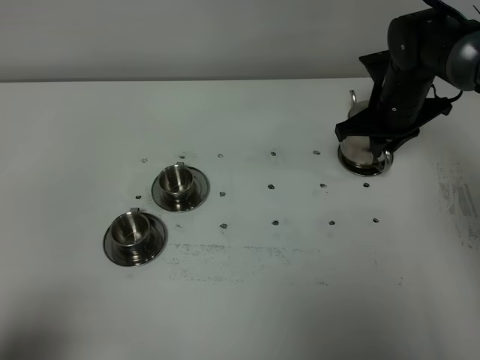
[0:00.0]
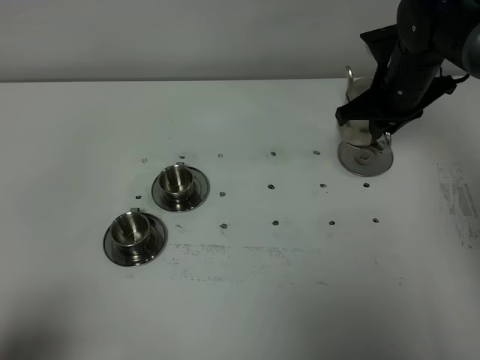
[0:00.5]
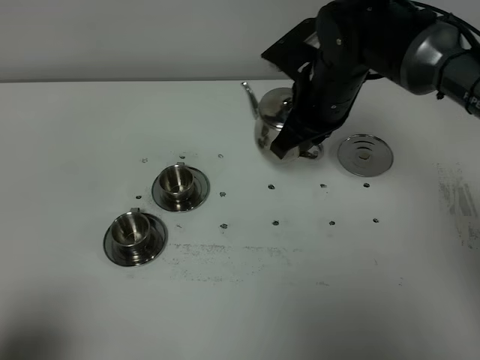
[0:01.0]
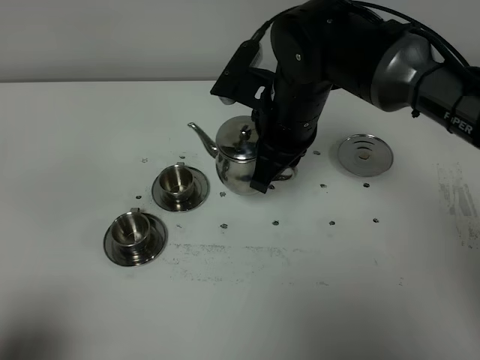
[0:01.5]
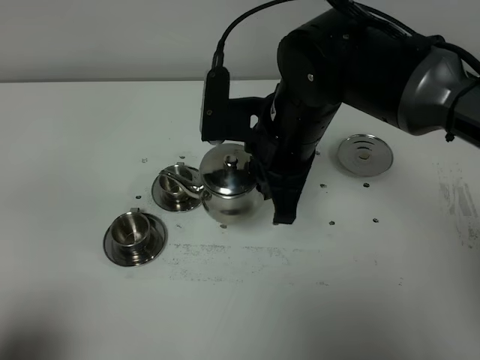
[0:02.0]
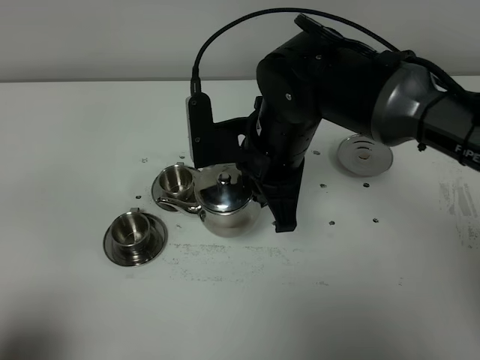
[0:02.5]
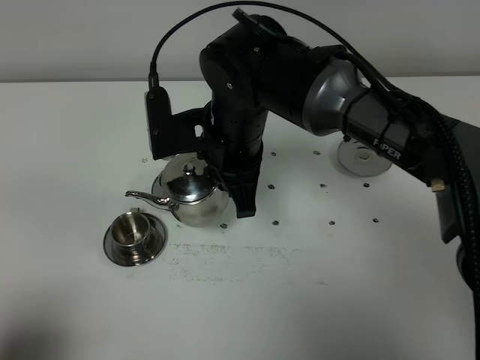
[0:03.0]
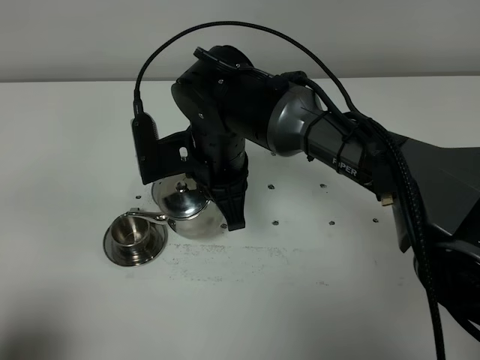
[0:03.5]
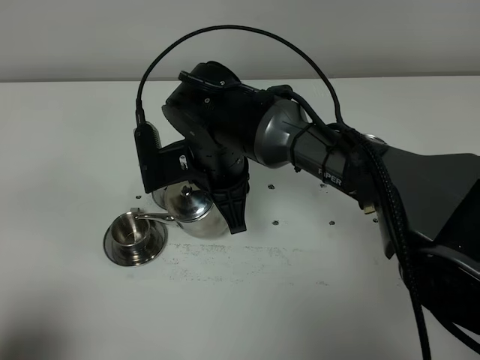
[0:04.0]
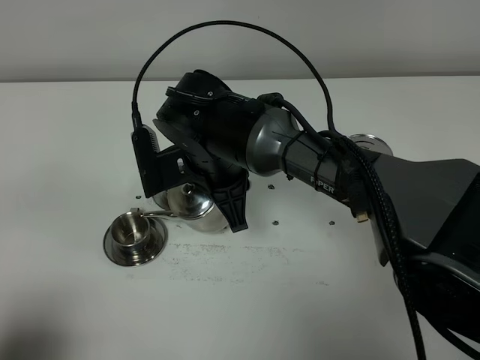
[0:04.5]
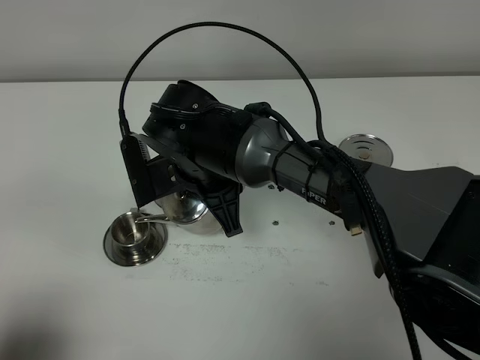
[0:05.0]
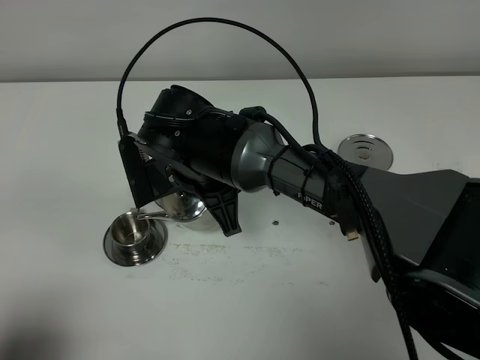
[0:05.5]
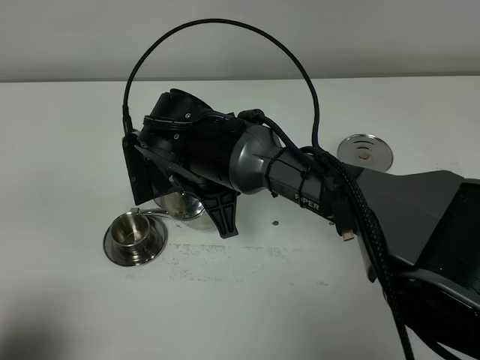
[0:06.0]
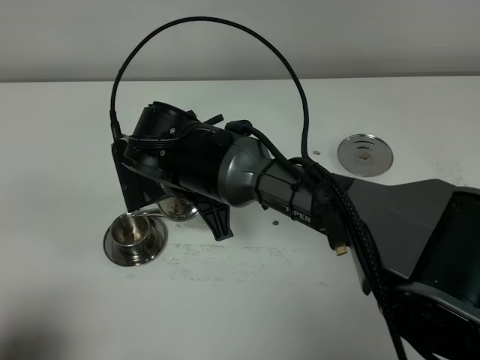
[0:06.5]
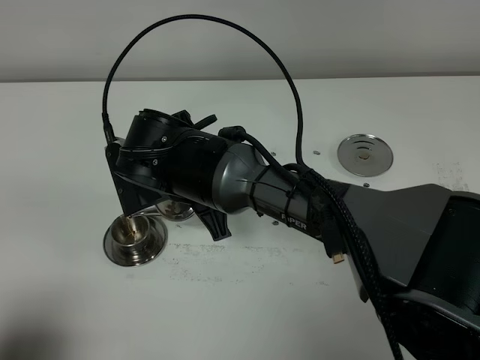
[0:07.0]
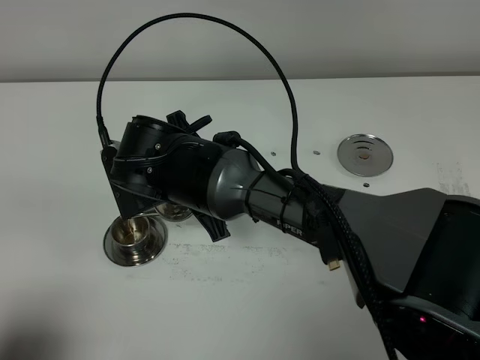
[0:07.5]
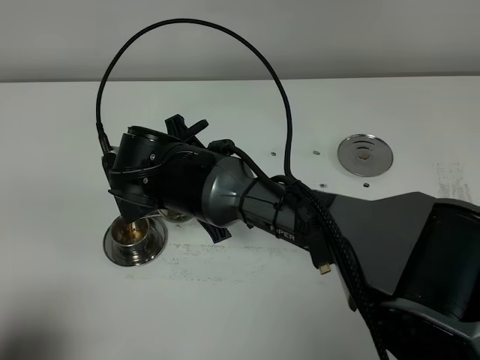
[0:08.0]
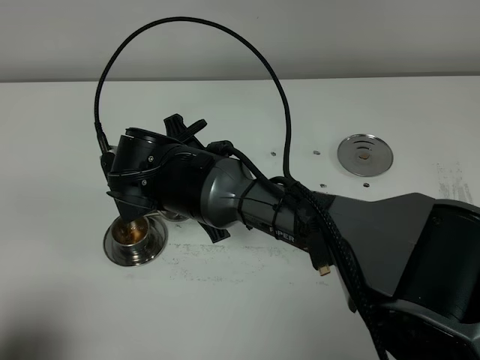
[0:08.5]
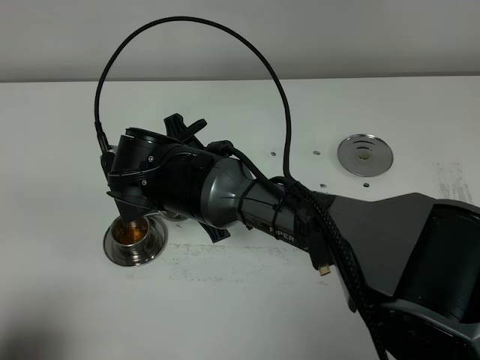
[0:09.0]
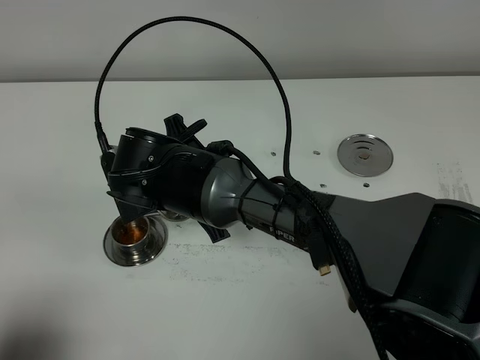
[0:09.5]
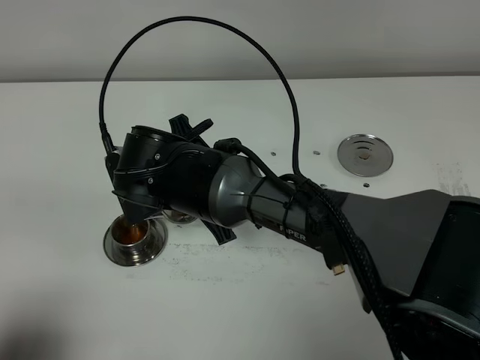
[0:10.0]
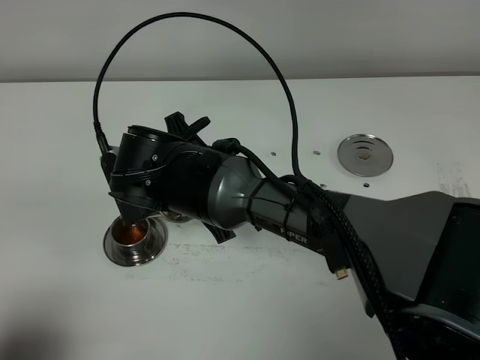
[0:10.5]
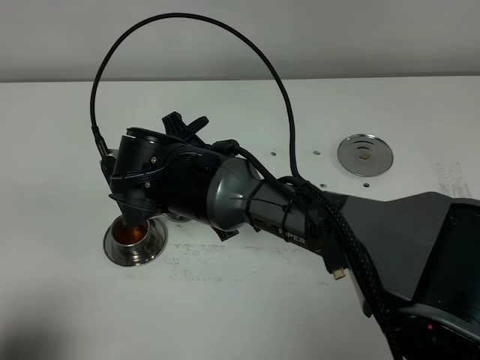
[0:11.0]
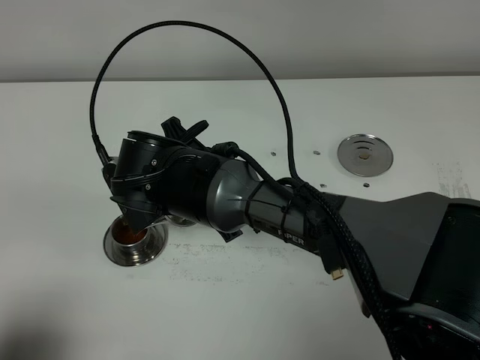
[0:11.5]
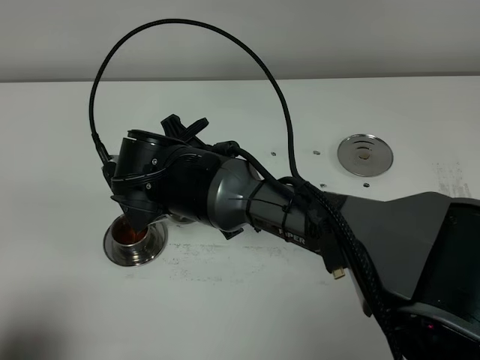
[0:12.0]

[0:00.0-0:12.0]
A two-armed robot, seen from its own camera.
Task of the whole recording: grasp the stainless steel teapot and pour the tea into the two stainless steel teacups one by one, put the stainless steel teapot back in its original place.
0:00.0 to 0:02.0: The right gripper moves to the left, backward and upward, about 25 cm.
0:02.0 to 0:04.0: The right gripper shifts roughly 10 cm to the left and downward.
0:08.0 to 0:10.0: The two grippers keep their place.
0:10.0 to 0:12.0: The grippers stay close to where they were, moving slightly.

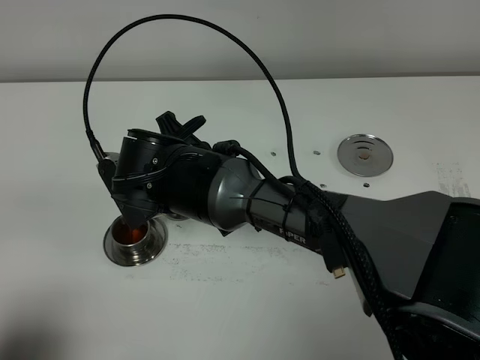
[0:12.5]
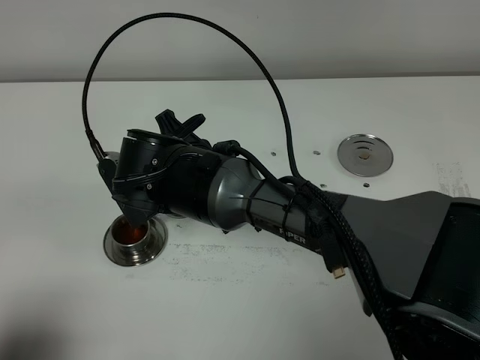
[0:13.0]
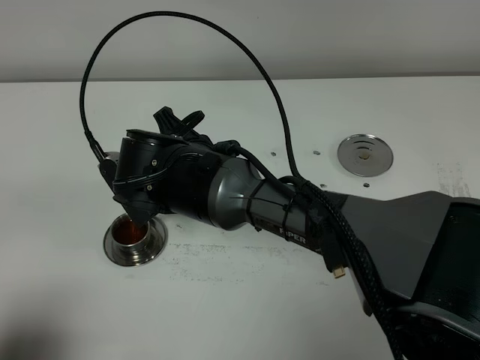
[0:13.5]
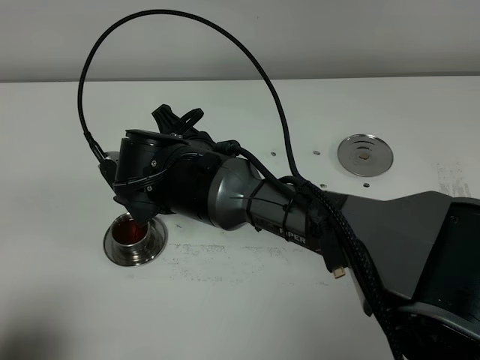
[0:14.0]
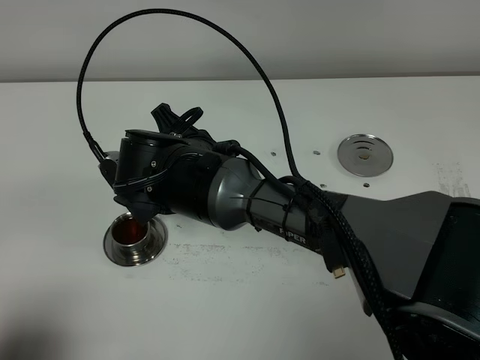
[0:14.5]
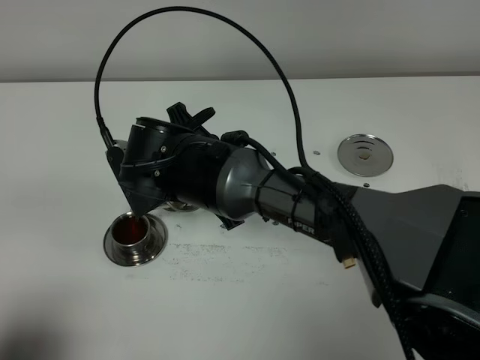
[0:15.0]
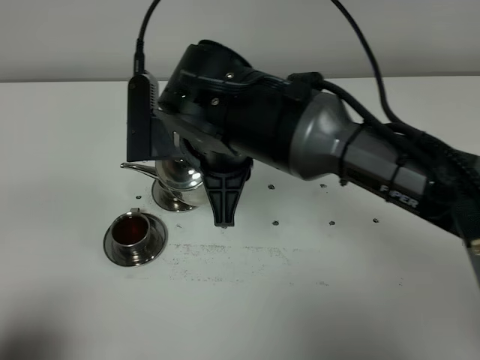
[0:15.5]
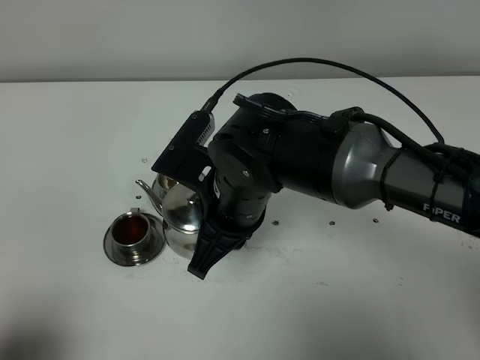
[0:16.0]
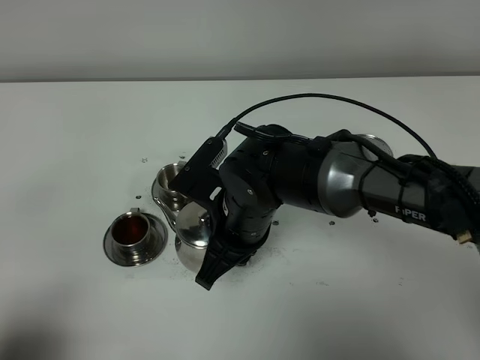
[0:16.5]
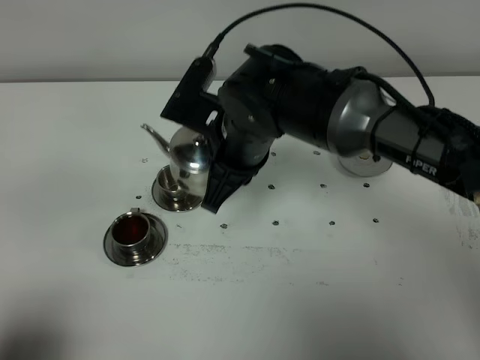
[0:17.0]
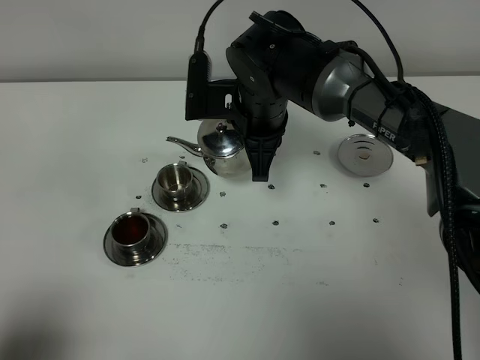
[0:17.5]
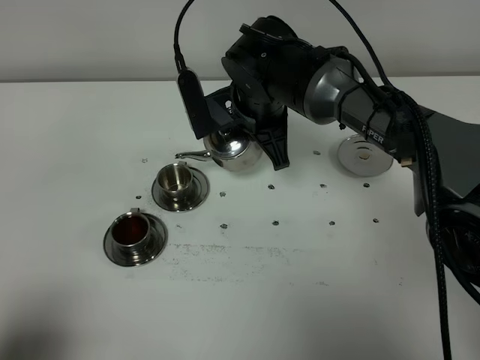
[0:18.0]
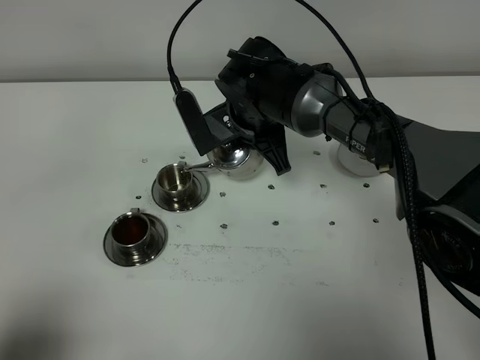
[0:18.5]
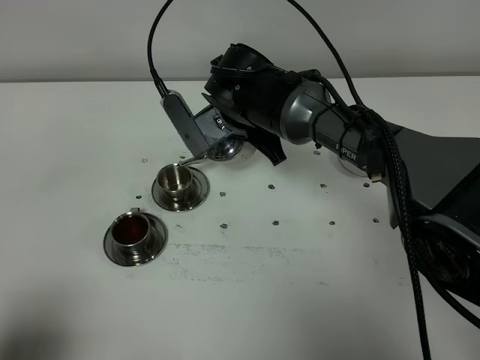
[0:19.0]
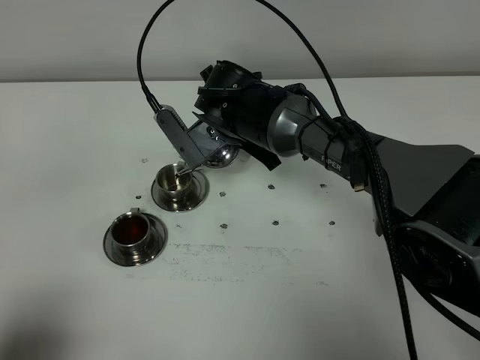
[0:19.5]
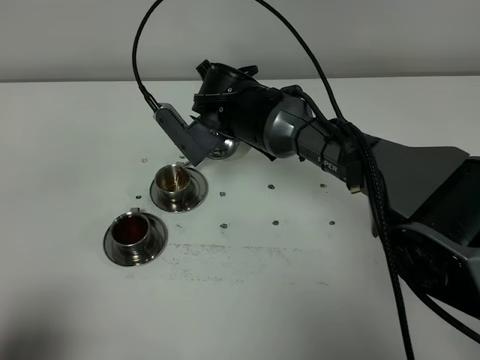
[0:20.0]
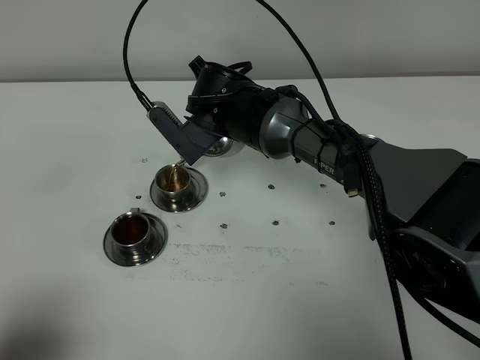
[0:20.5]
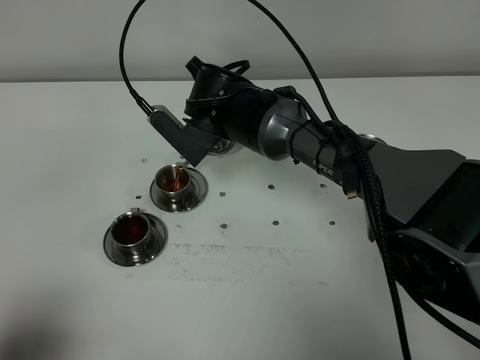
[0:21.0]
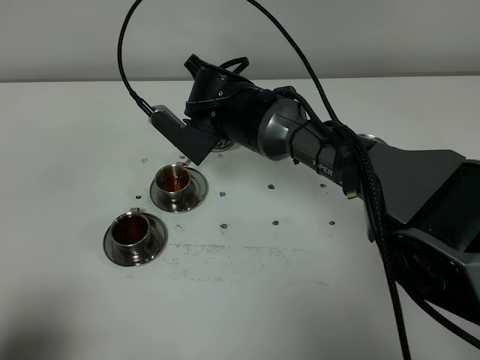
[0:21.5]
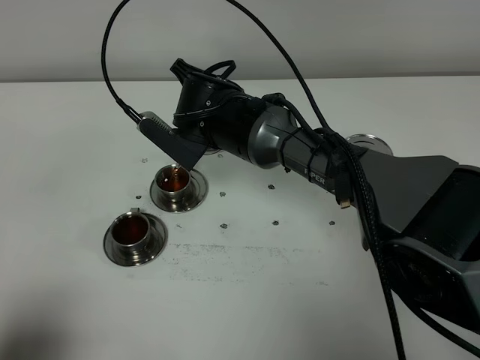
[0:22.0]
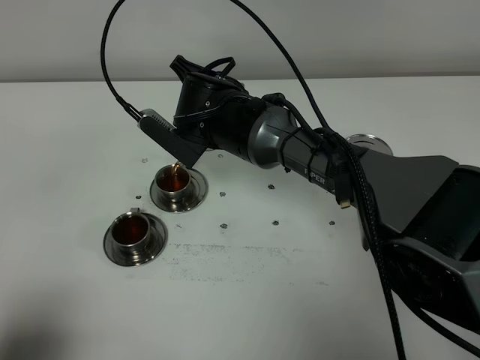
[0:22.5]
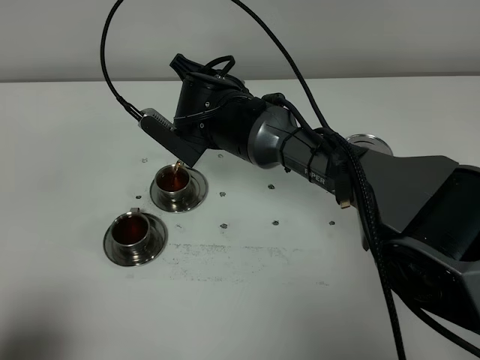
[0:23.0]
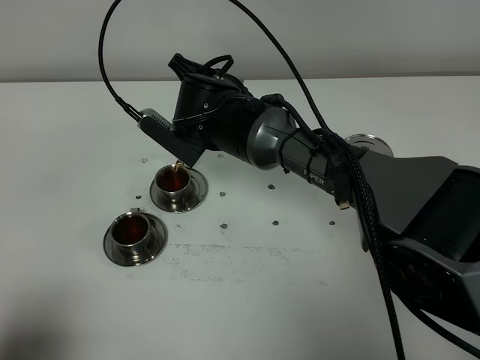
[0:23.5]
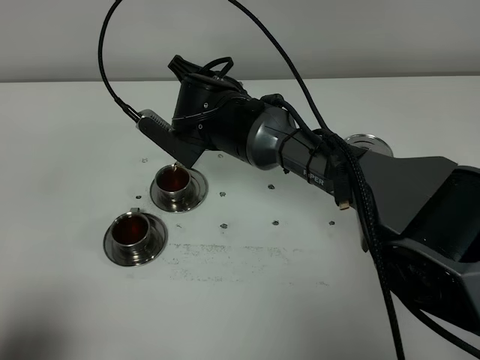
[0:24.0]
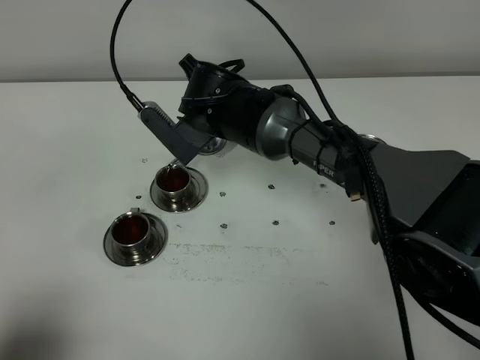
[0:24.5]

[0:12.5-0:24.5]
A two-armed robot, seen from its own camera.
Task of the whole recording: grasp the stainless steel teapot and pour the tea into the two stainless steel teacups one by one, put the stainless steel teapot back in its original place.
Step, 0:12.5 to 0:15.0: Pour tea into the teacup with the right gripper.
0:12.5 to 0:14.5: The grippers stay close to where they were, moving slightly.
0:14.5 to 0:16.5: The right gripper goes roughly 5 cm to the right, and travels upward and back again, about 5 cm each way.
0:16.5 to 0:18.5: The right gripper moves forward, roughly 15 cm.
0:20.5 to 0:24.5: The grippers move only a little.

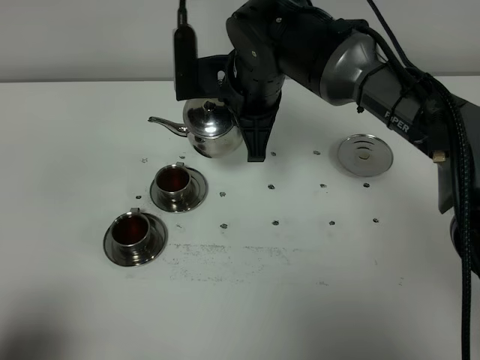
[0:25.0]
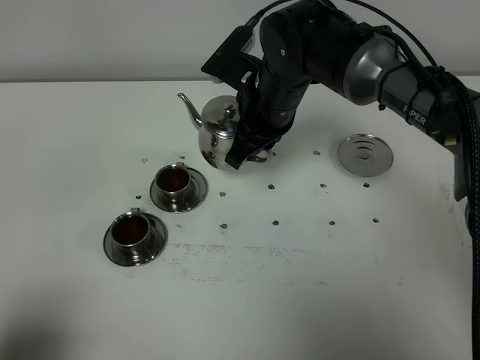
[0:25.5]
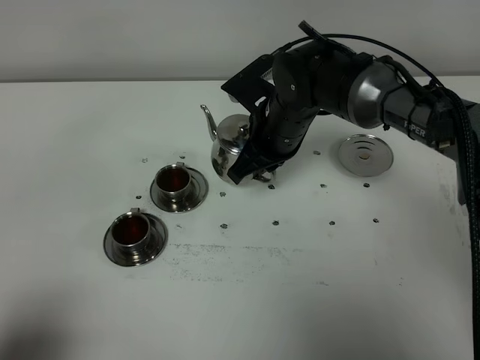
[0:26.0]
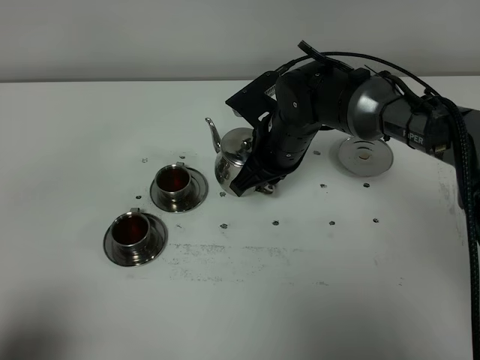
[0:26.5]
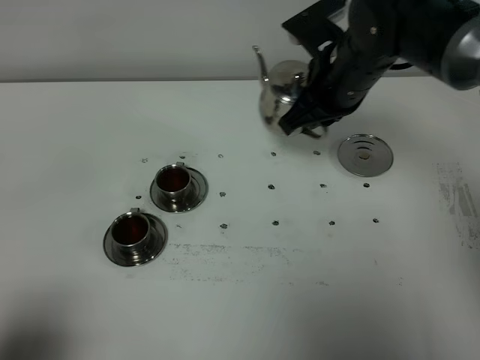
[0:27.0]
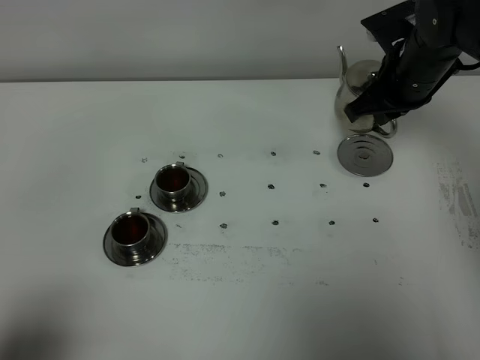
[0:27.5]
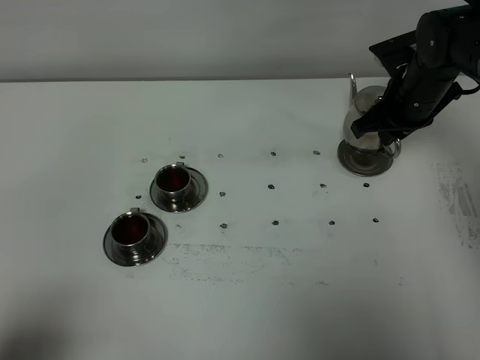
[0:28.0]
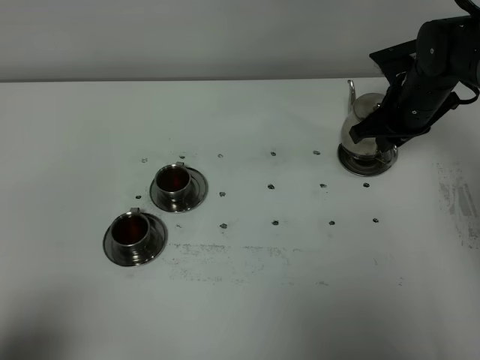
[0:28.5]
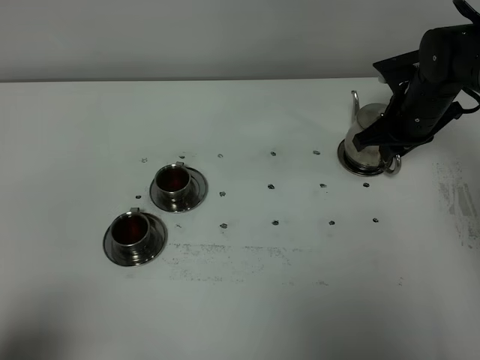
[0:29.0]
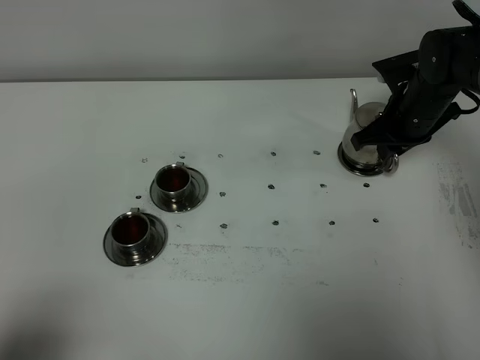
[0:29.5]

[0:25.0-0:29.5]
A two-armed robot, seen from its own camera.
Task of the whole recording: grasp the stainless steel teapot and pour the tea into the two stainless steel teacups one by one, put the stainless steel teapot back in its original place.
0:25.0 to 0:27.0: The right gripper goes approximately 10 cm to the right.
0:27.0 to 0:29.5: The right gripper travels to the right and downward by roughly 15 cm.
